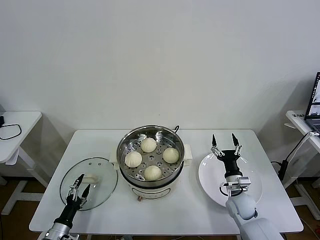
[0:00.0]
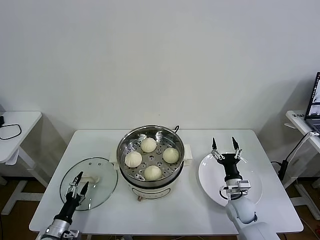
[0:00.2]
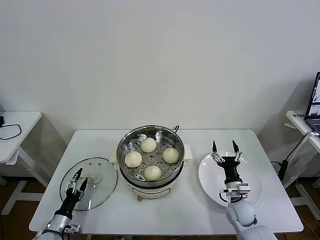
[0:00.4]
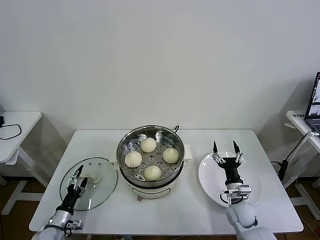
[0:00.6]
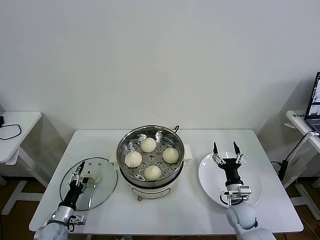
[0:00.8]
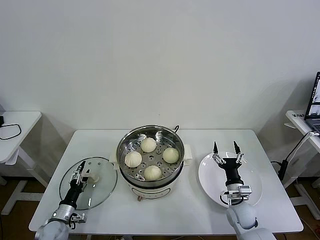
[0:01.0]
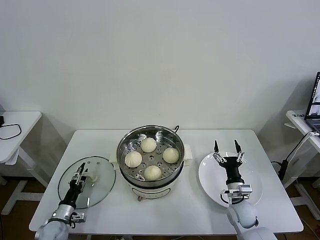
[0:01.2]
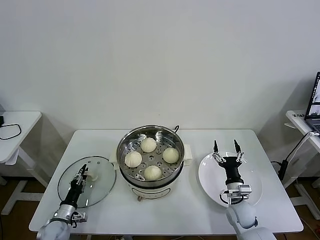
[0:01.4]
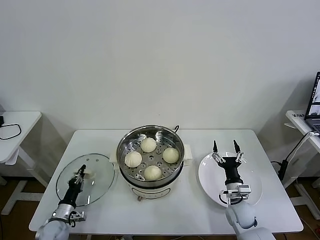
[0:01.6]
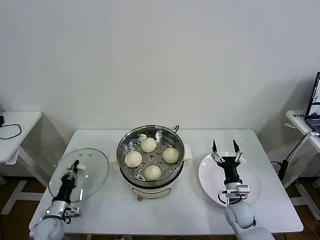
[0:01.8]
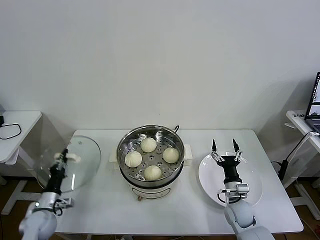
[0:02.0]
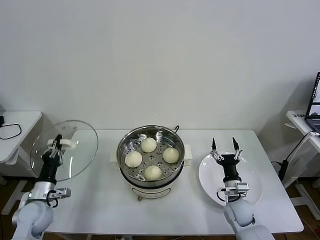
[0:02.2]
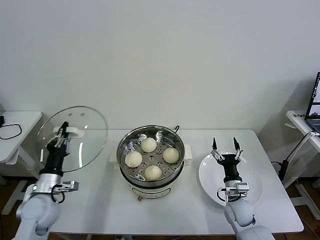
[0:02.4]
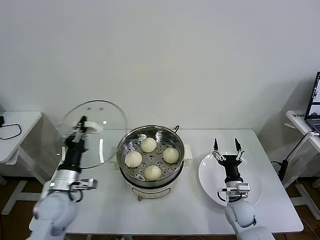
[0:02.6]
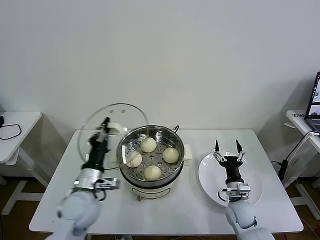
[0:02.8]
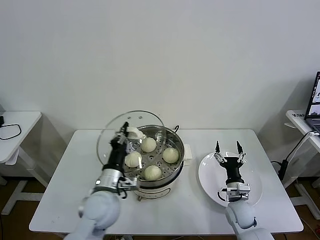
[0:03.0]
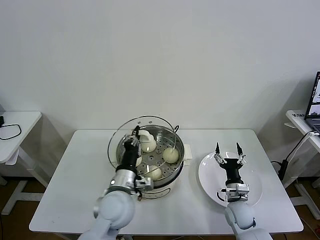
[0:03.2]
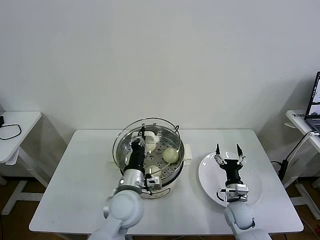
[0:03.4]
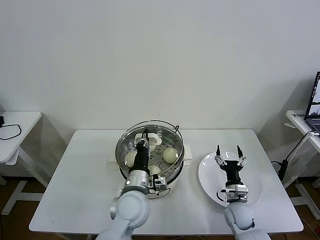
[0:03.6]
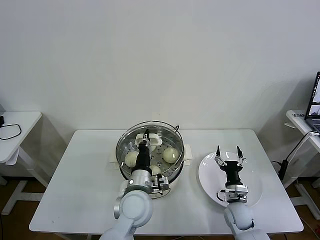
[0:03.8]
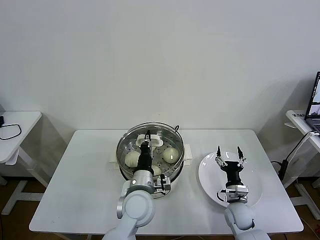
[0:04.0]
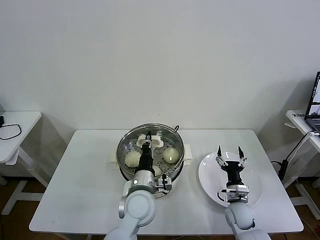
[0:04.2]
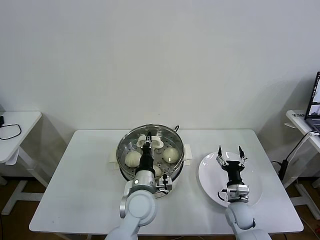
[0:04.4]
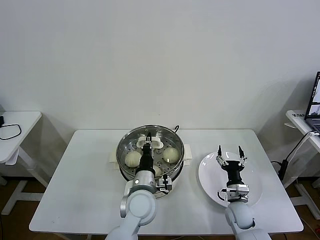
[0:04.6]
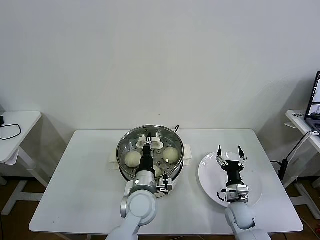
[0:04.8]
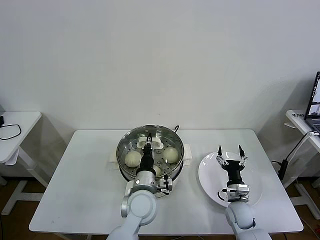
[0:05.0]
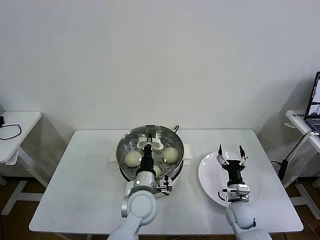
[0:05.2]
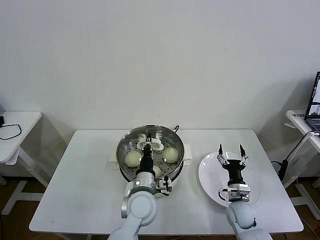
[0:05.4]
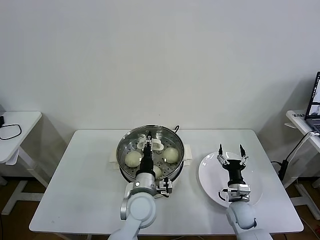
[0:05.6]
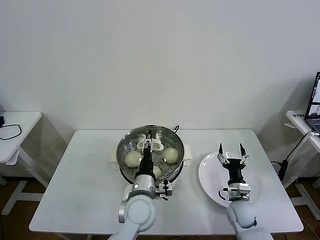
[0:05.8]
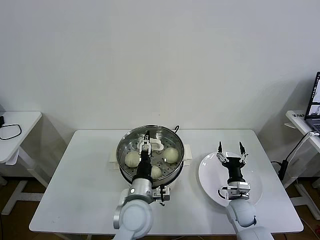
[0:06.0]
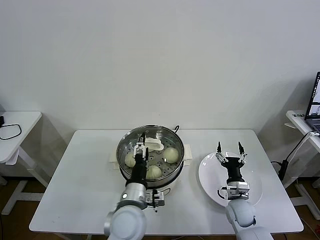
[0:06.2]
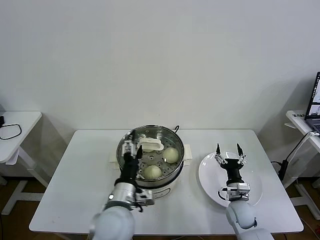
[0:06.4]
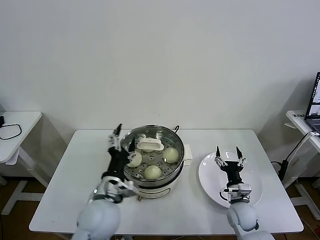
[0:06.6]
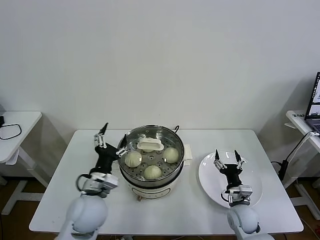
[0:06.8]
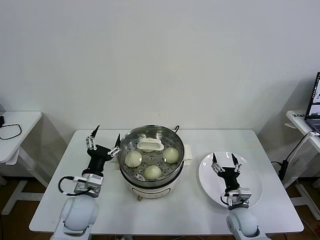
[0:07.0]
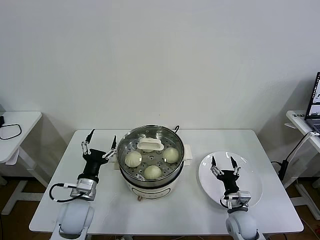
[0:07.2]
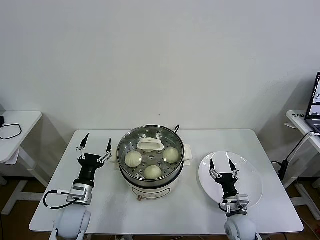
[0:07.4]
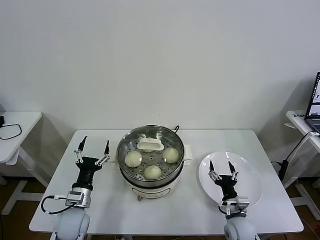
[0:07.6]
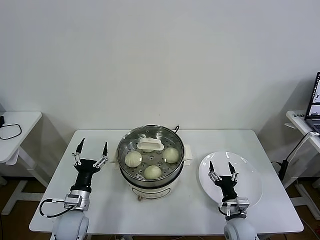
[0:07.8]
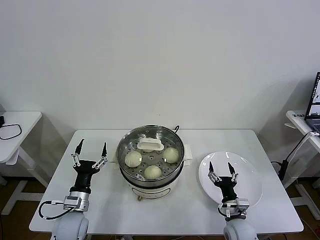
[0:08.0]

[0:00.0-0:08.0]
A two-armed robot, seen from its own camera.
Task of the whole recording: take steamed baozi put them in steamer then cover it.
Step, 0:02.0 to 0:05.8: Place the pot lid on the steamer with left gripper.
0:00.0 to 0:01.6: The left gripper travels forward by some 5 cm, and closes.
0:01.6 to 0:03.2: The left gripper travels to the right and upward by some 35 cm.
0:03.2 to 0:04.8: The left gripper moves to the right, about 5 cm.
0:04.8 to 0:06.4: The left gripper shifts some 5 cm backward, and opens up.
0:06.4 to 0:08.0: The right gripper is displaced backward by some 5 cm, while the left gripper shifts about 20 cm to the left and downward.
